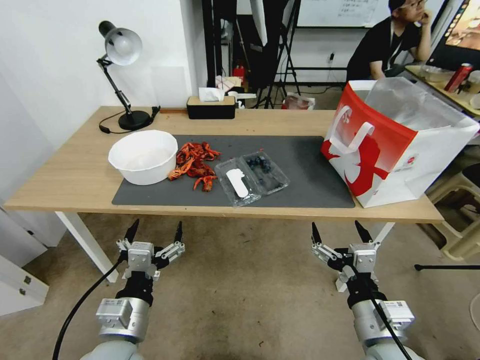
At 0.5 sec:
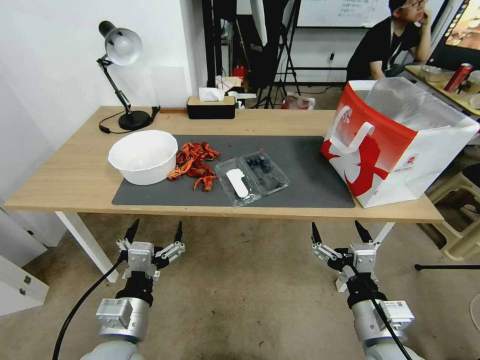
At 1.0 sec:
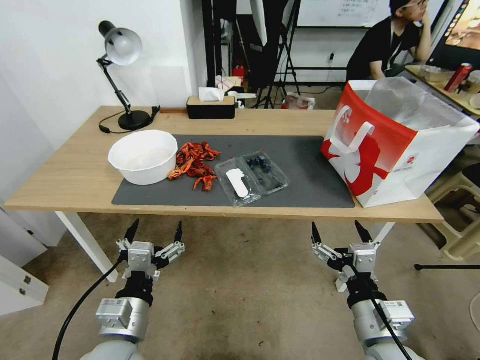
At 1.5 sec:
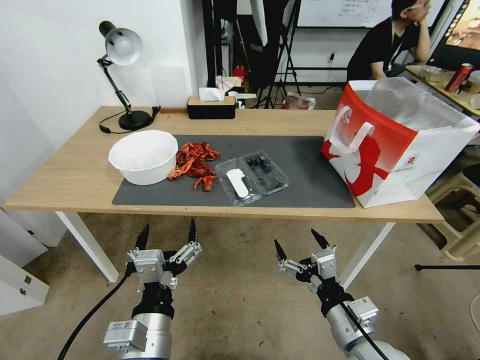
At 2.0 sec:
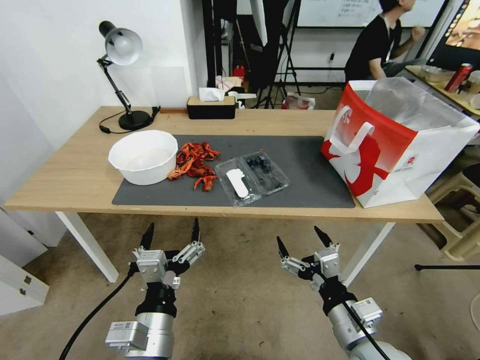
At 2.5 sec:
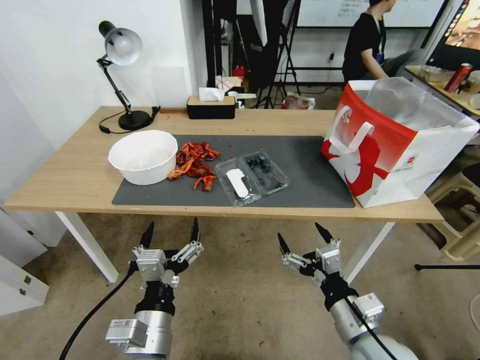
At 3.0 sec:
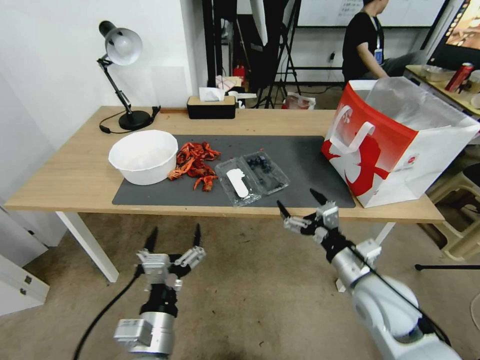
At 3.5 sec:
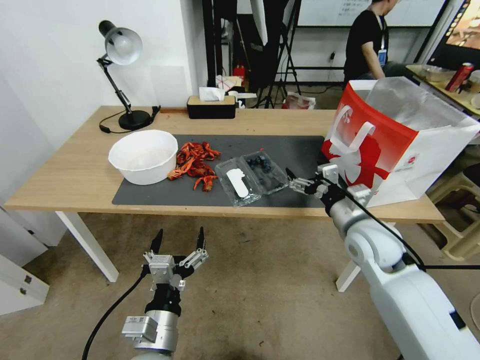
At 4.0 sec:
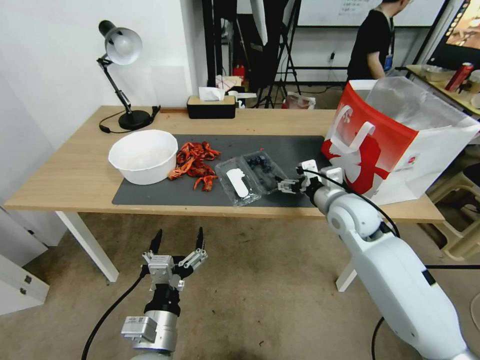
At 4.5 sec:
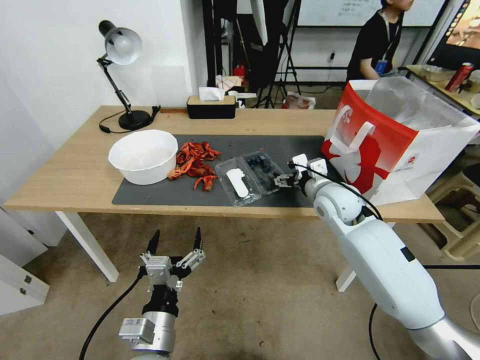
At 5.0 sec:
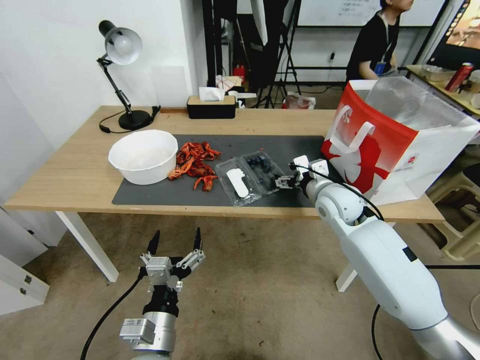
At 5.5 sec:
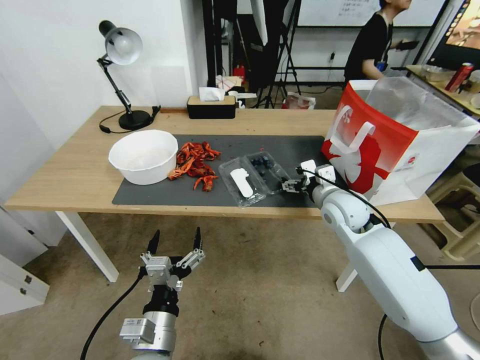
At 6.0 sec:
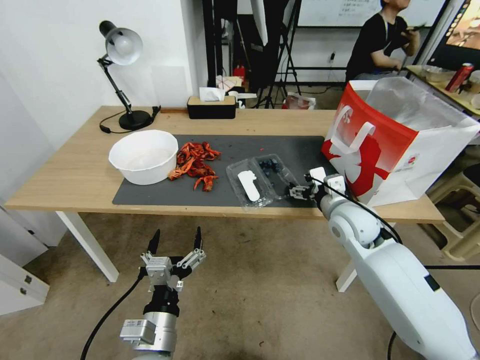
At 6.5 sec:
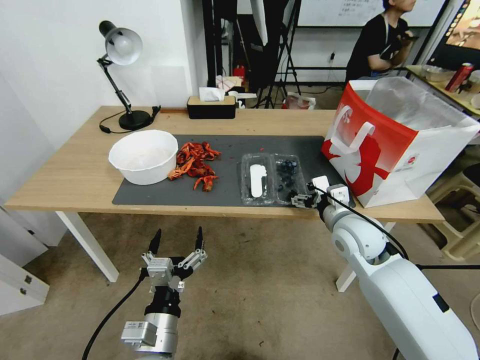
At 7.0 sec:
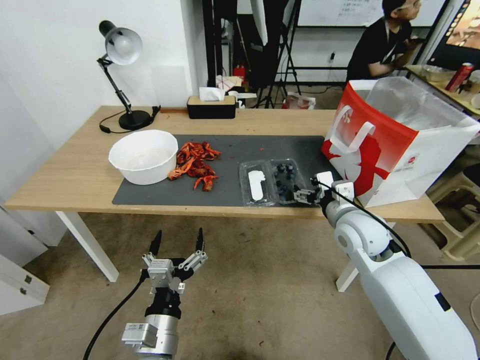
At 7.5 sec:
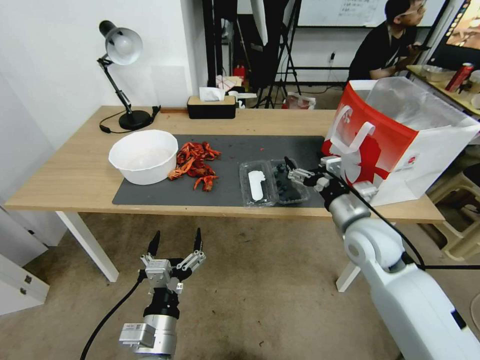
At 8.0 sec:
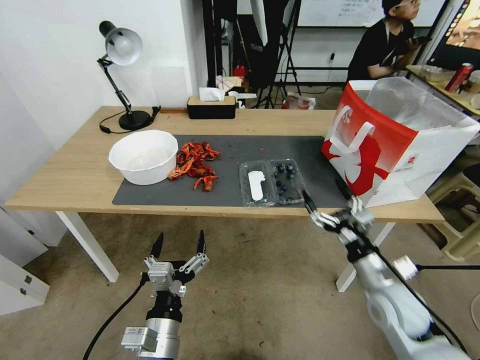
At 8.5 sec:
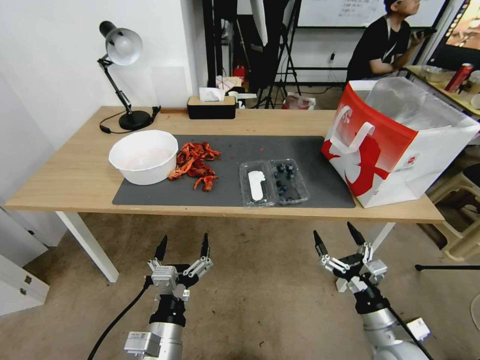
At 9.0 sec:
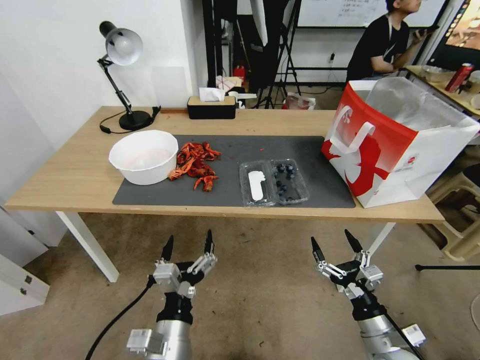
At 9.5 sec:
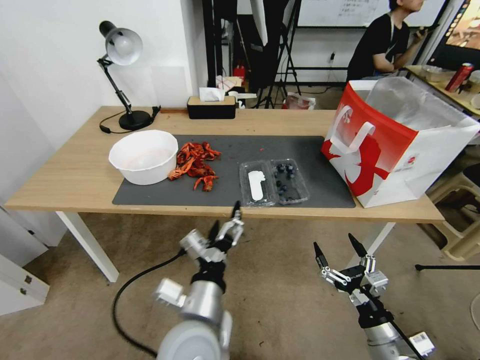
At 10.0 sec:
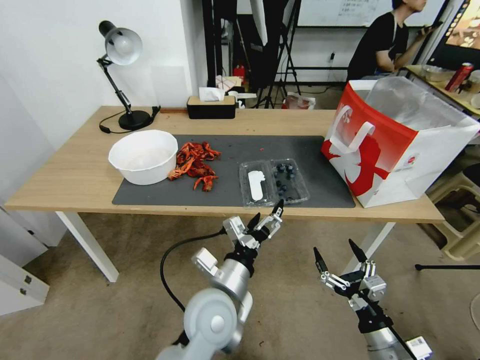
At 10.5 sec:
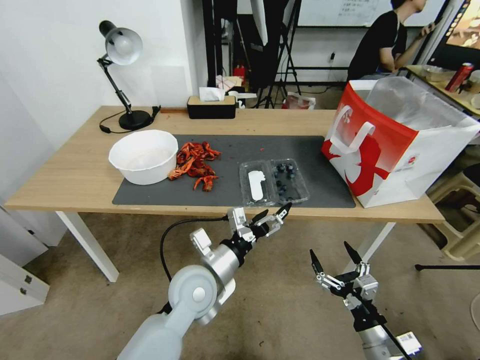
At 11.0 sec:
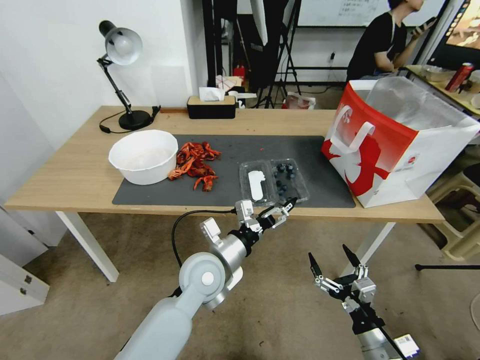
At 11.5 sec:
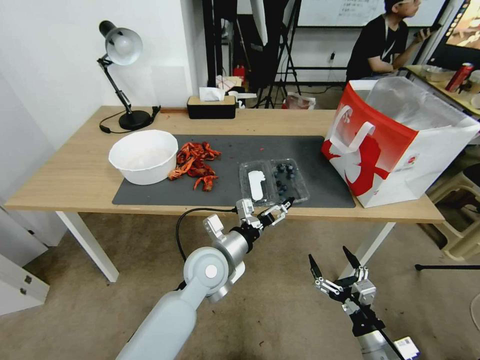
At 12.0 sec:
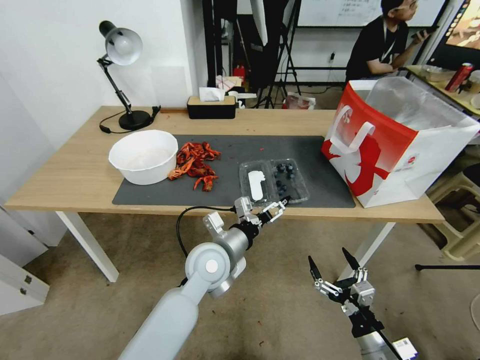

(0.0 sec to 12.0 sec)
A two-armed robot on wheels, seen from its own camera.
Task of the whole recording: Close the takeout container lid, then place the container into the takeout bag.
2.0 sec - 4.0 sec: The right gripper goes some 25 cm forward; the left gripper moves downward, approximately 5 cm.
4.0 sec - 6.0 sec: The grippers move only a little.
6.0 sec - 8.0 sec: The right gripper goes approximately 15 cm backward, downward and to the right.
8.0 sec - 10.0 sec: The right gripper heads backward and downward, covering some 15 cm, while the left gripper moves forward and to the right, roughly 15 cm.
10.0 sec - 12.0 sec: The left gripper moves forward, about 10 cm.

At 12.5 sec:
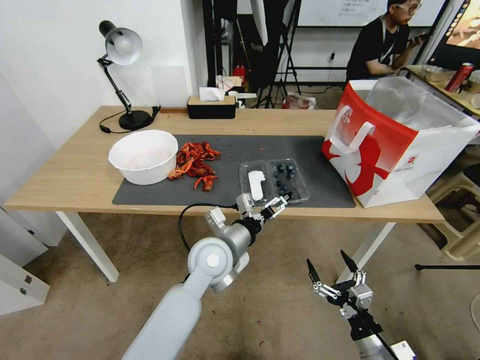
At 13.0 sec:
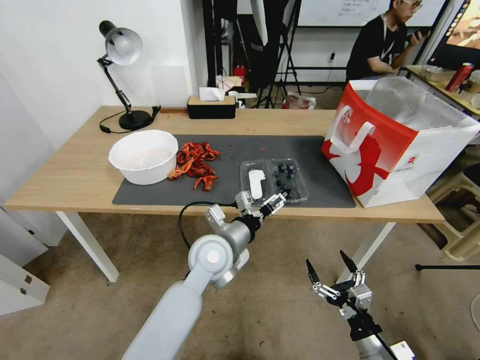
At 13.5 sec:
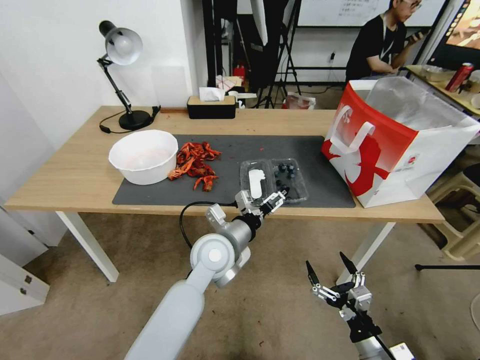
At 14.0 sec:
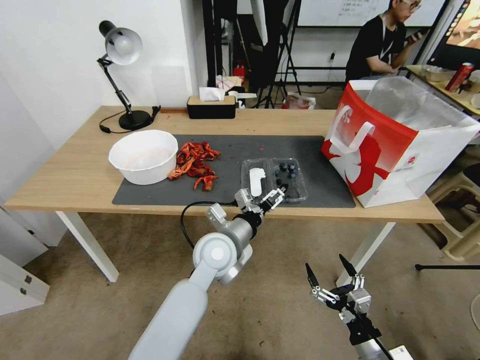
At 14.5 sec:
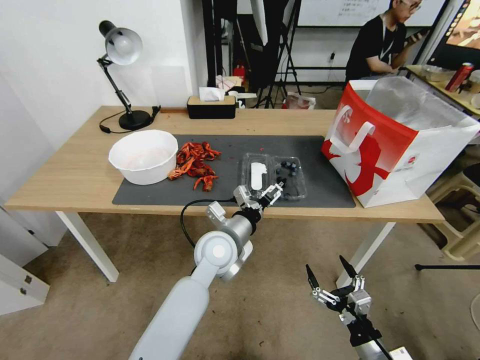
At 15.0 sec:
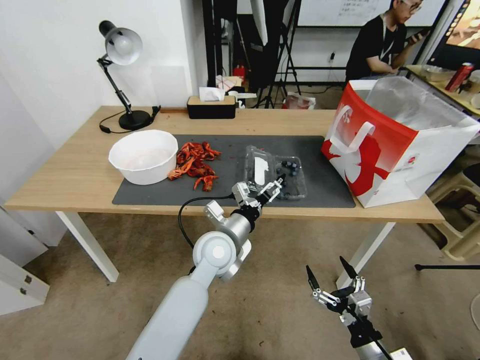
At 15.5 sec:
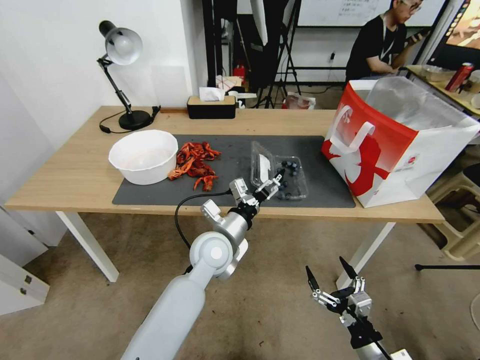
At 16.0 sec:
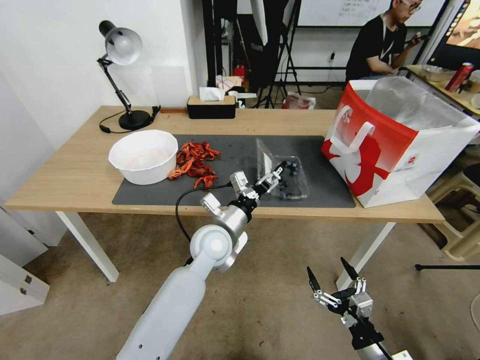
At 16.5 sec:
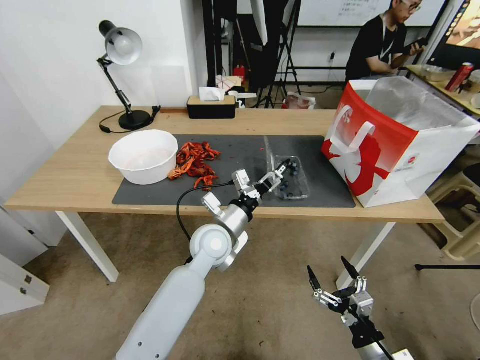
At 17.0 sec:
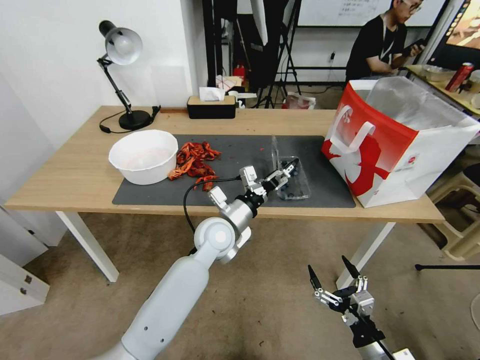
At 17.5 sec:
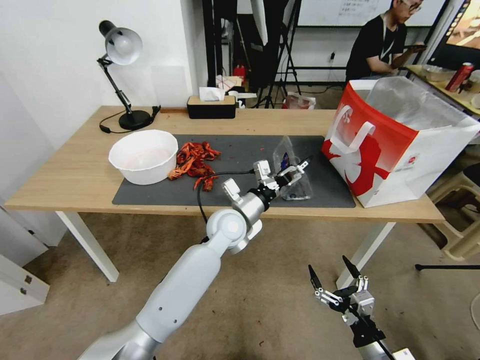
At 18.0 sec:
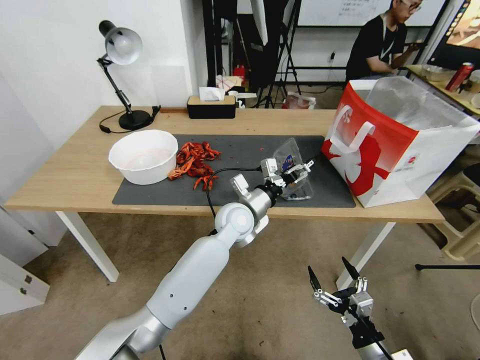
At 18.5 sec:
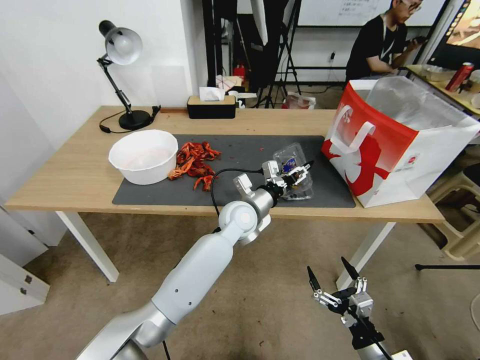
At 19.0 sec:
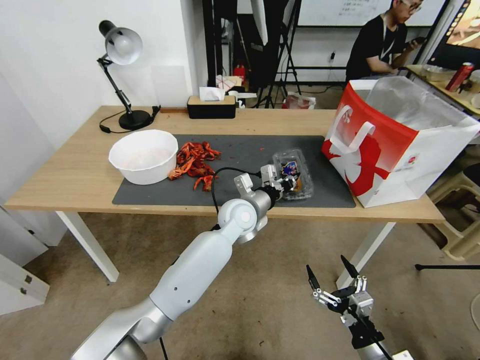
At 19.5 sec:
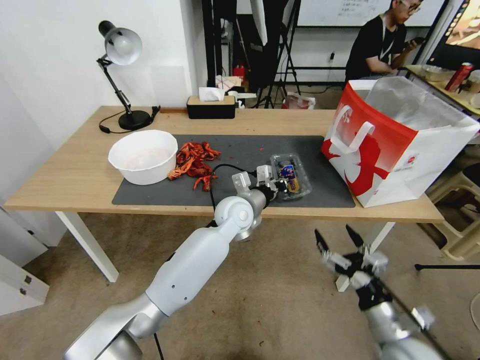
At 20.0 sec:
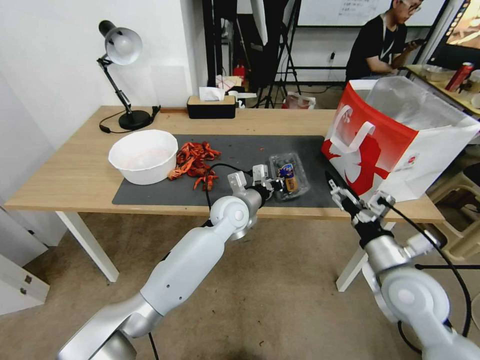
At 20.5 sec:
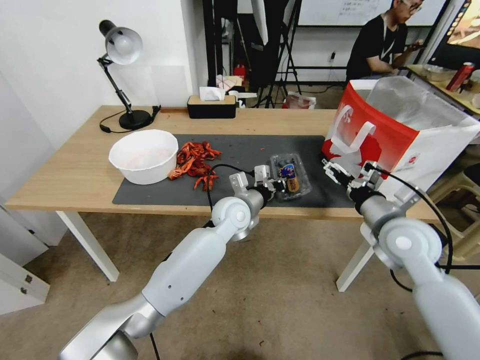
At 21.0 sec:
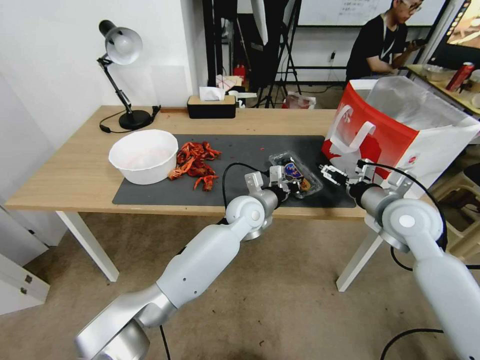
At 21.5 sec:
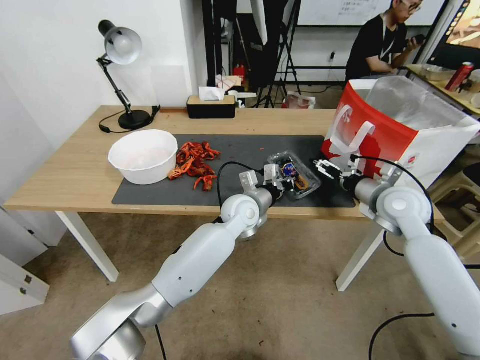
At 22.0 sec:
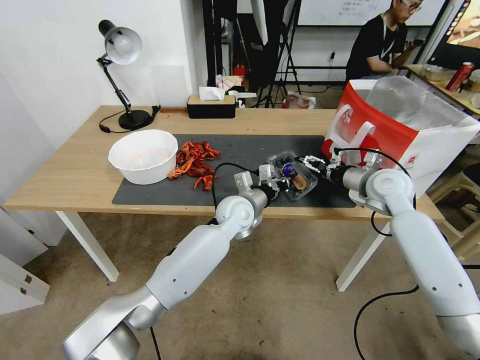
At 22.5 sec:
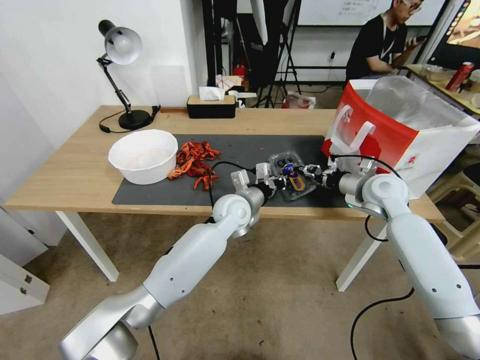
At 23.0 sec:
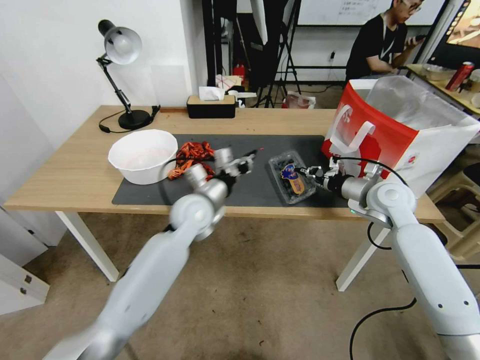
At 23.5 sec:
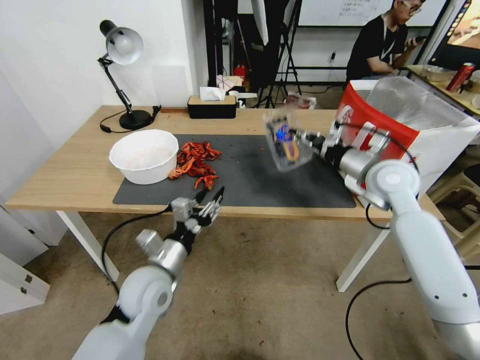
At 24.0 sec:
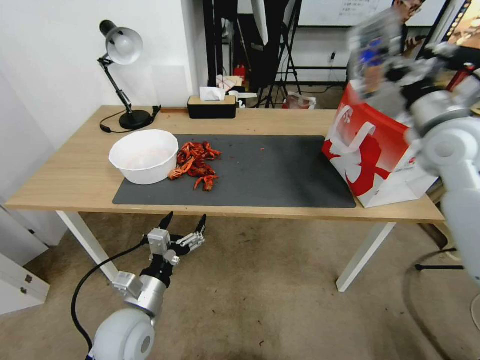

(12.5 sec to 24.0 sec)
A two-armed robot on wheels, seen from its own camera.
Task of the whole recording: Close the takeout container lid, then place the container into the takeout bag.
12.5 sec - 14.5 sec: There are only small adjustments of the grippers.
16.5 sec - 18.5 sec: The left gripper moves forward and to the right, roughly 10 cm, and closes.
18.5 sec - 20.0 sec: The left gripper closes its fingers. The right gripper goes roughly 20 cm upward and forward.
20.0 sec - 22.0 sec: The right gripper moves forward, about 20 cm.
22.0 sec - 24.0 sec: The right gripper shifts roughly 15 cm upward, and closes up. The left gripper moves backward and to the left, some 30 cm, and opens its fingers.

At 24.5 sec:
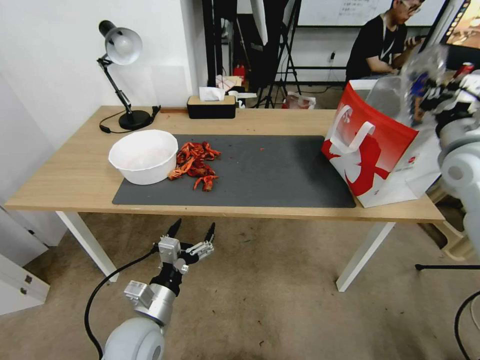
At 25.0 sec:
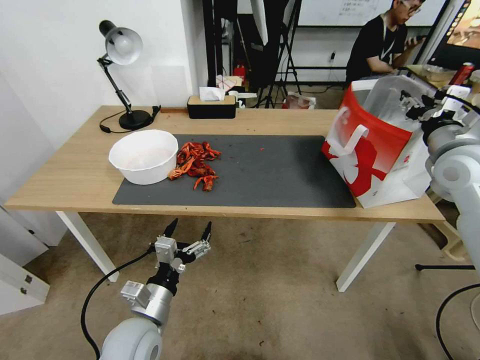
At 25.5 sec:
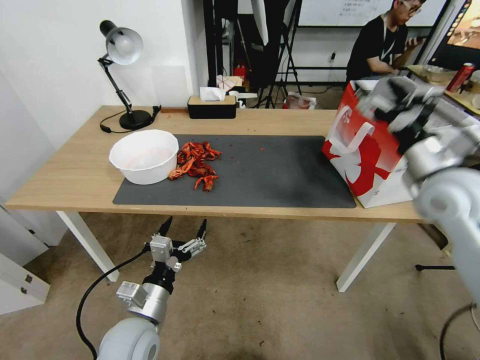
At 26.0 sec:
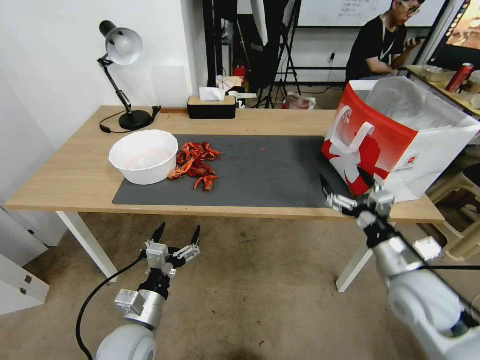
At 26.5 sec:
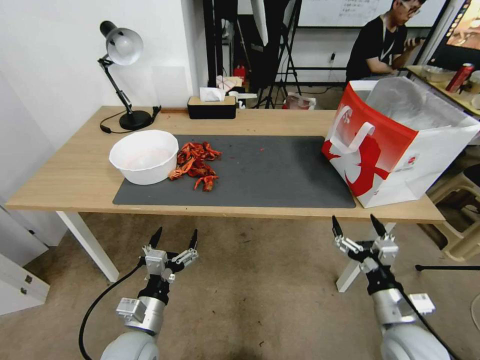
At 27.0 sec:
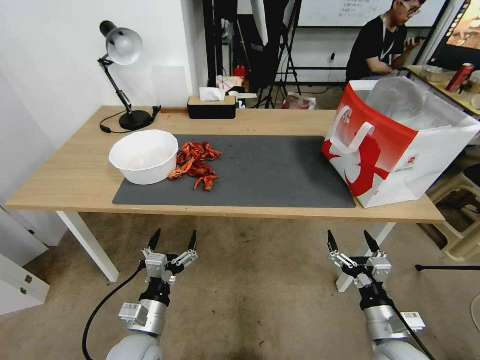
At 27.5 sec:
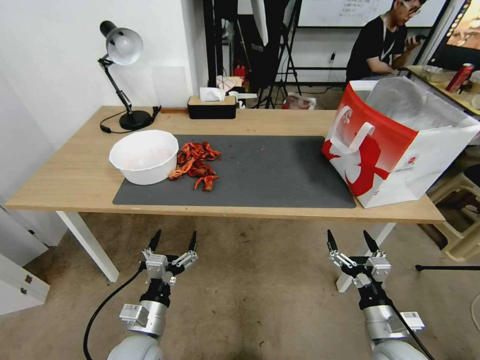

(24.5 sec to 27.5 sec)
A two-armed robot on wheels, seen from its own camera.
Task of the whole recording: Close the takeout container lid, then place the container into the takeout bag.
24.5 sec - 26.0 sec: The right gripper moves downward, backward and to the left, roughly 25 cm, and opens up.
26.0 sec - 27.5 sec: The right gripper goes approximately 15 cm downward and backward.
